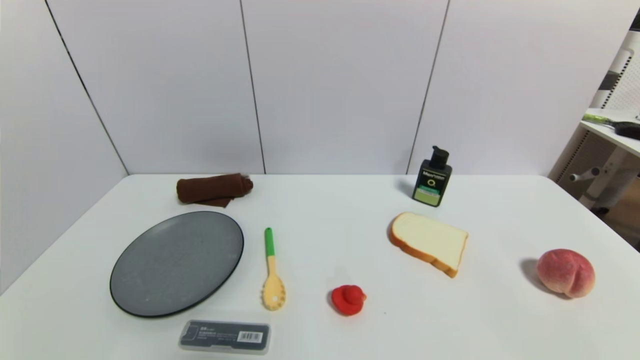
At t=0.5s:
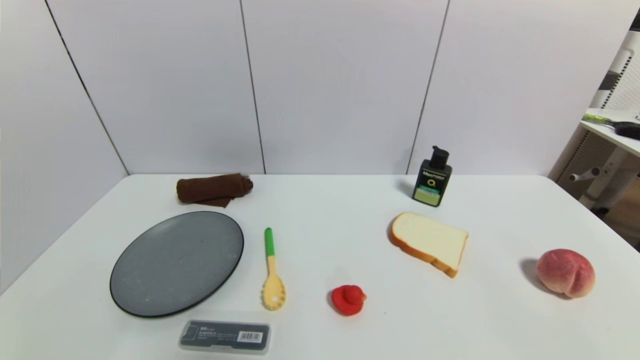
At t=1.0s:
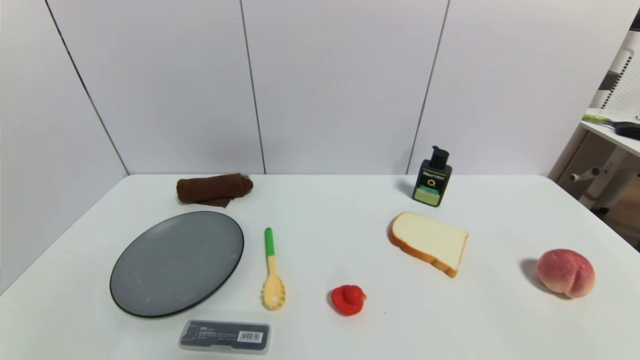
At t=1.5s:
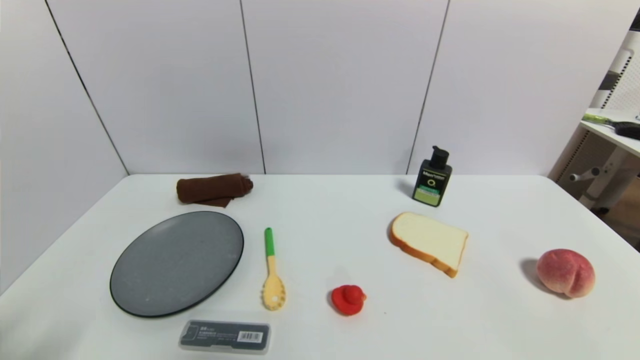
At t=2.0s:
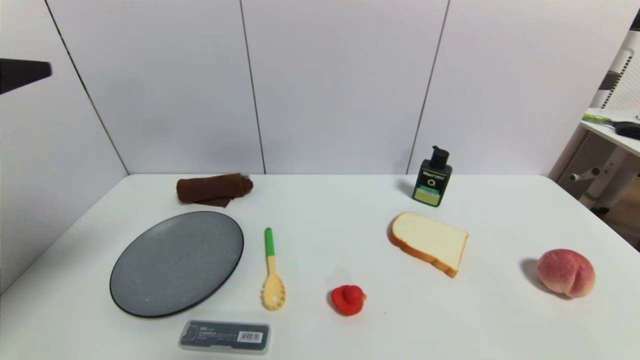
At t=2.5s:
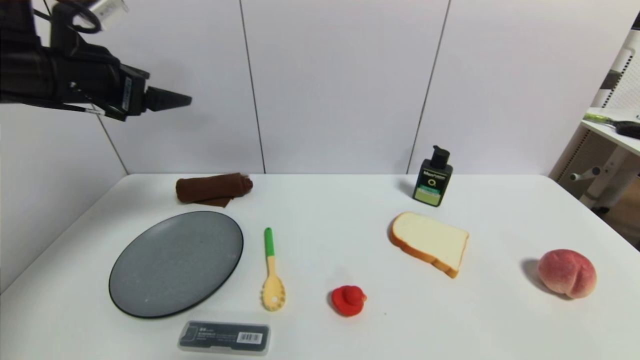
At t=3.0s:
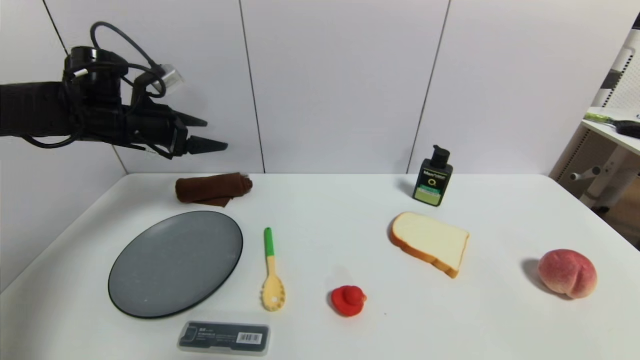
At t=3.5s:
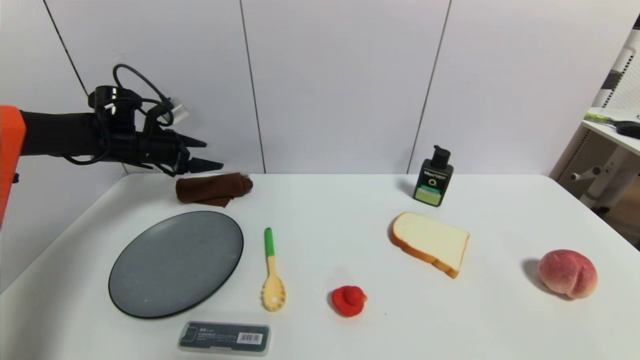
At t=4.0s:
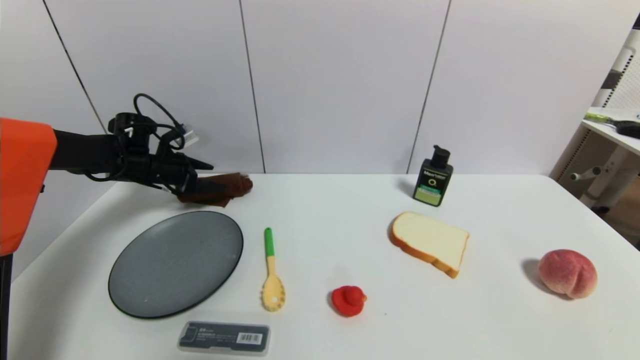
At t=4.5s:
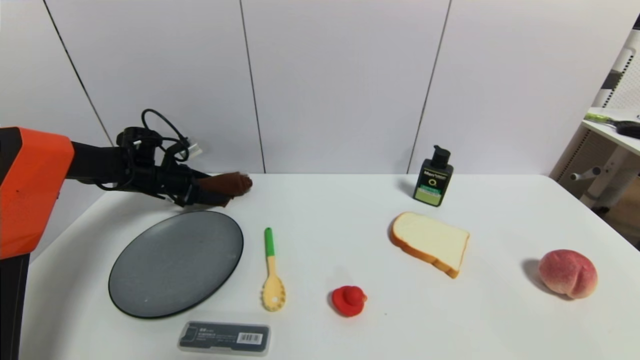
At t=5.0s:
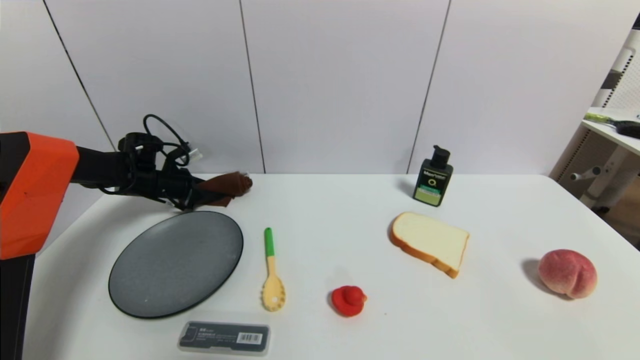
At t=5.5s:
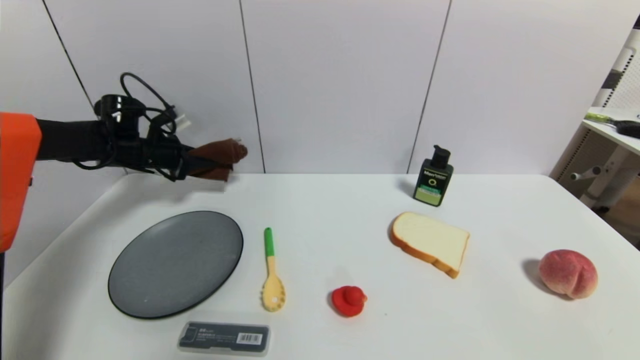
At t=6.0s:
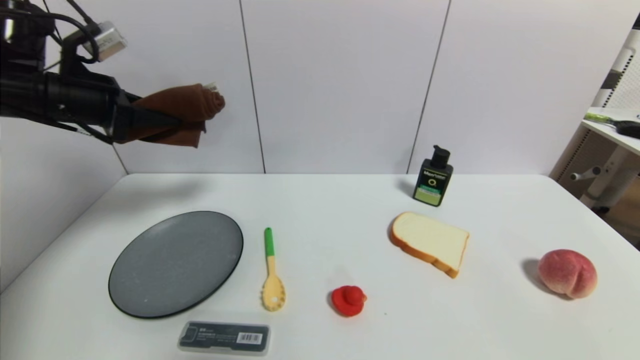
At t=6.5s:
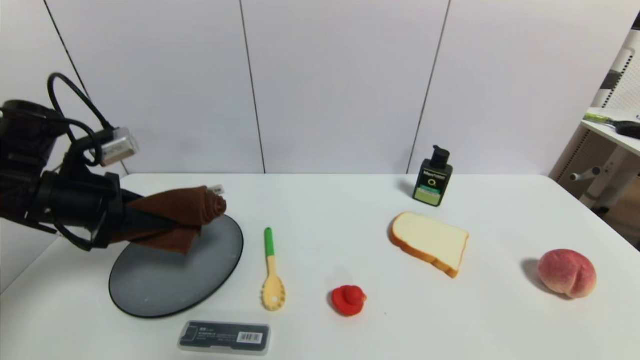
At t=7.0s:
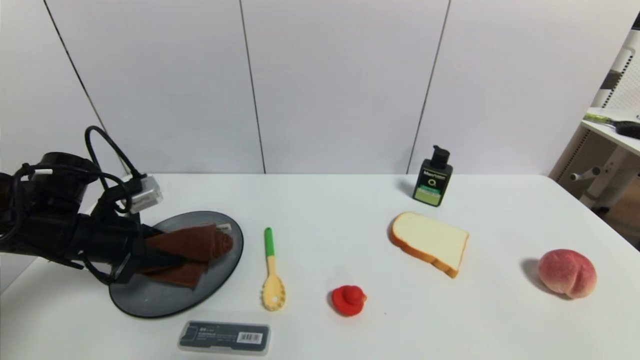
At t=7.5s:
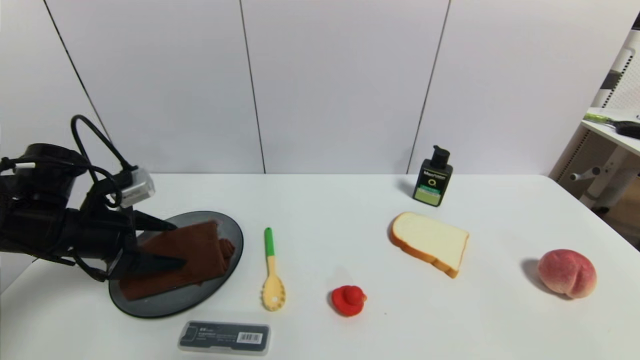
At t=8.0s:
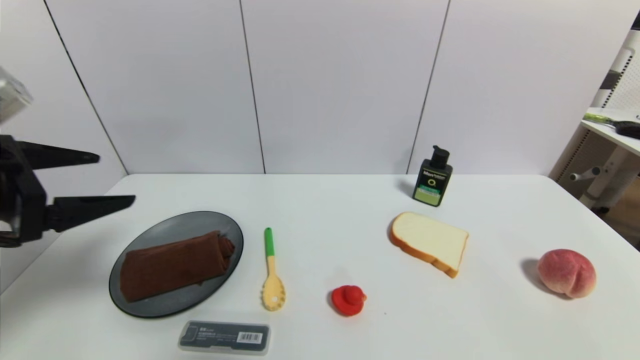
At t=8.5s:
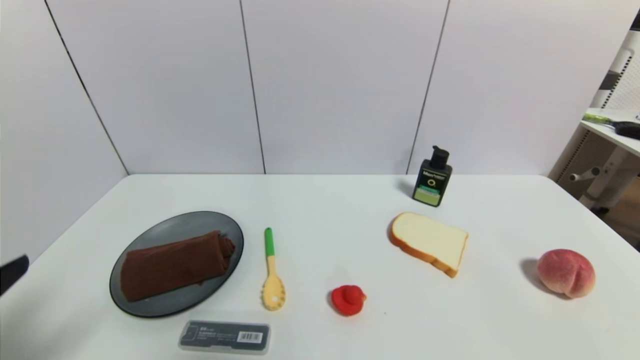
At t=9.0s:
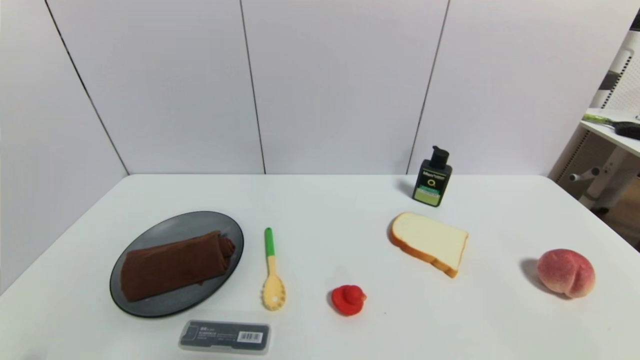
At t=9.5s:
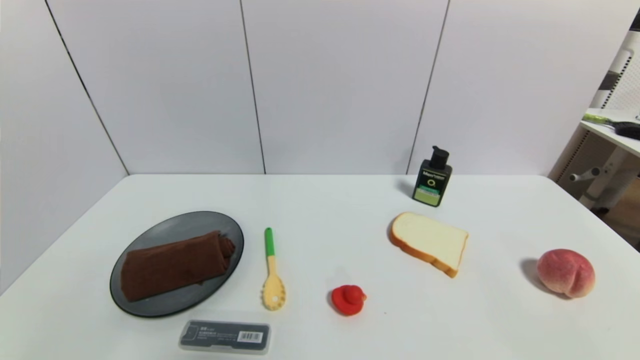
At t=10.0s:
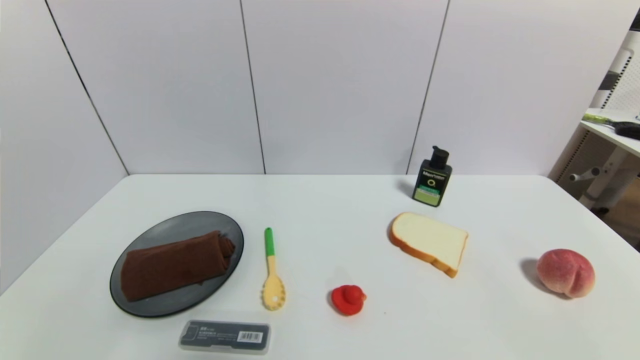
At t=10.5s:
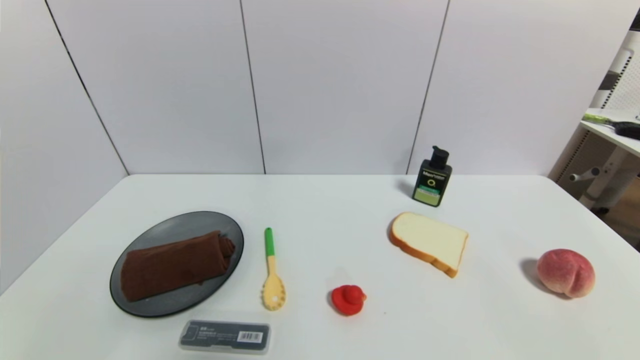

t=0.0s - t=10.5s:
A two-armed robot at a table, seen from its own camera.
Task of the whole recording: use a gripper to pick the target object and place on the gray plate.
Step, t=0.0s - t=5.0s: Grasp the brown towel with the left gripper.
Step, t=5.5s - t=7.5s: Place the brown towel on the gray plate with the left gripper.
t=0.0s - t=2.0s: The left gripper travels upward and forward by about 35 cm.
t=2.0s - t=4.0s: The left gripper is displaced forward and downward by roughly 40 cm.
t=4.0s - t=6.5s: The left gripper moves up and down over some 20 cm, changing direction 2 times, and closes up.
t=6.5s - t=8.5s: The left gripper moves backward, about 25 cm, and opens up.
t=8.5s - t=10.5s: The left gripper goes approximately 20 cm downward.

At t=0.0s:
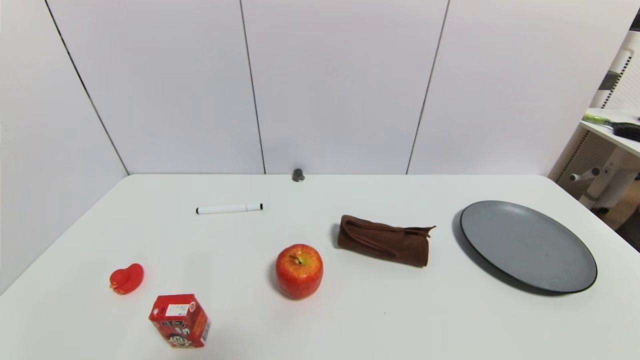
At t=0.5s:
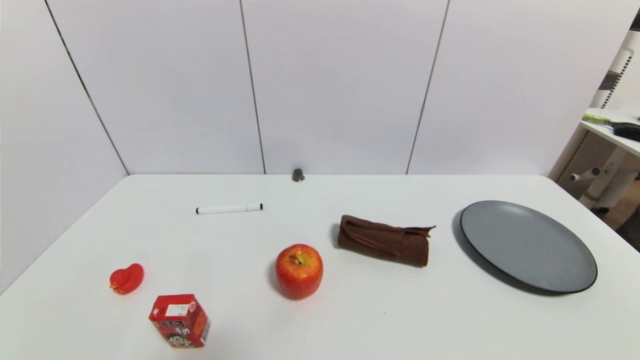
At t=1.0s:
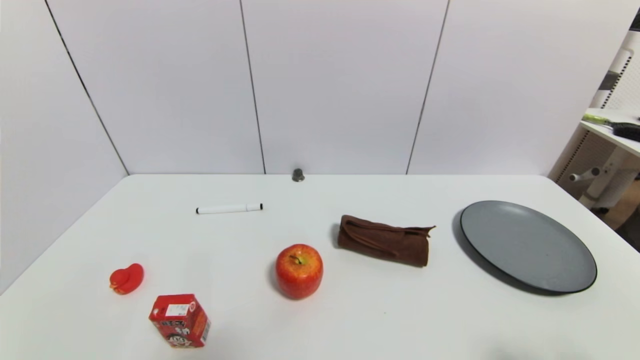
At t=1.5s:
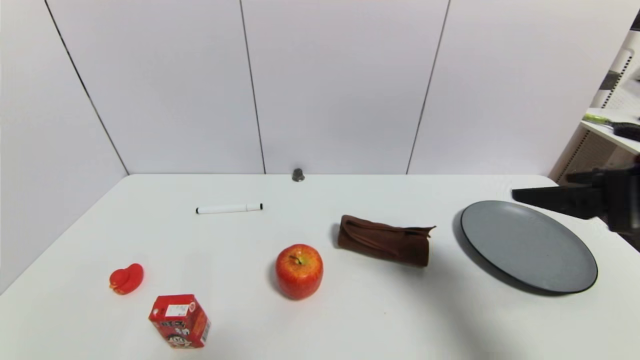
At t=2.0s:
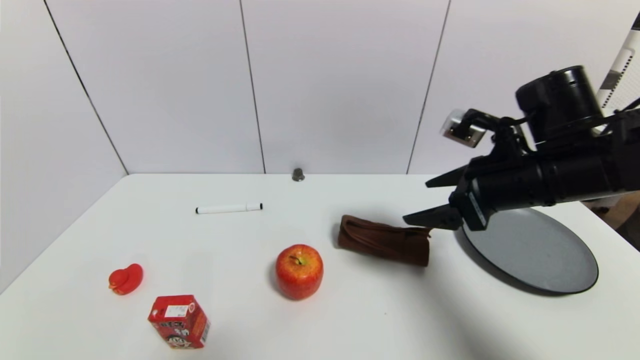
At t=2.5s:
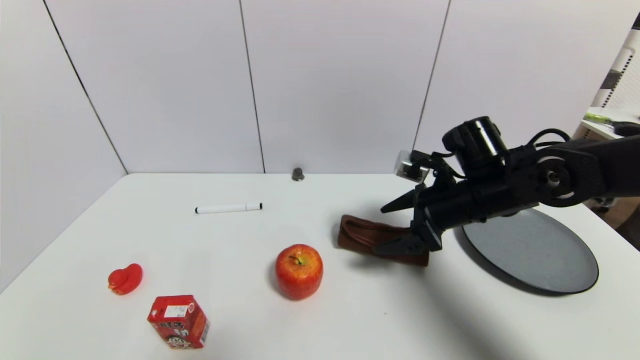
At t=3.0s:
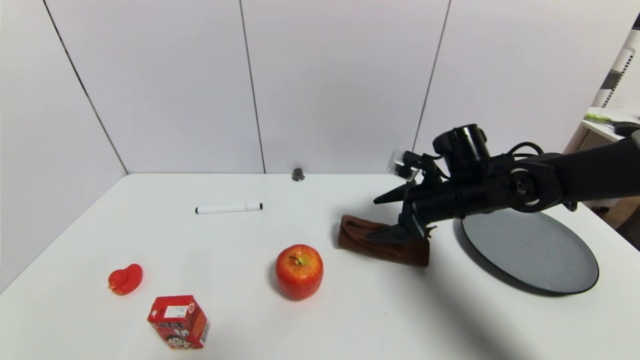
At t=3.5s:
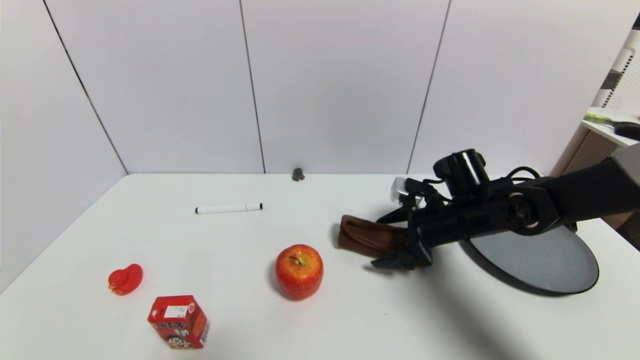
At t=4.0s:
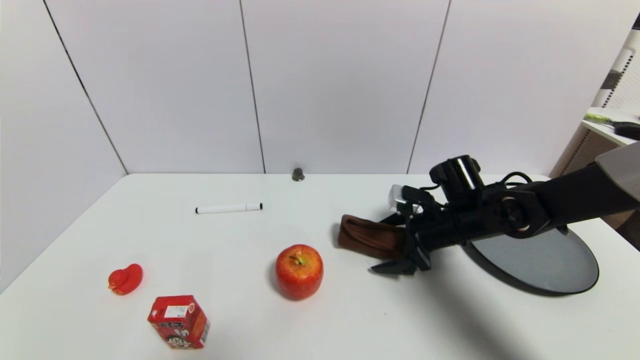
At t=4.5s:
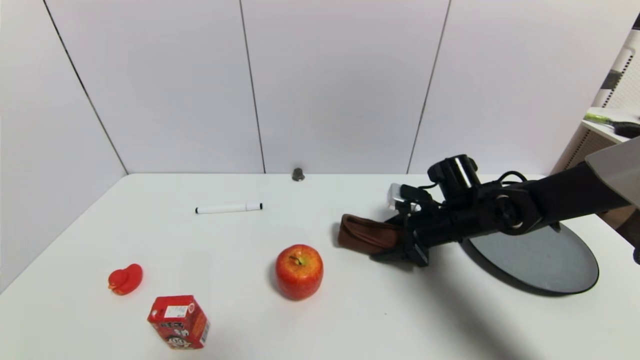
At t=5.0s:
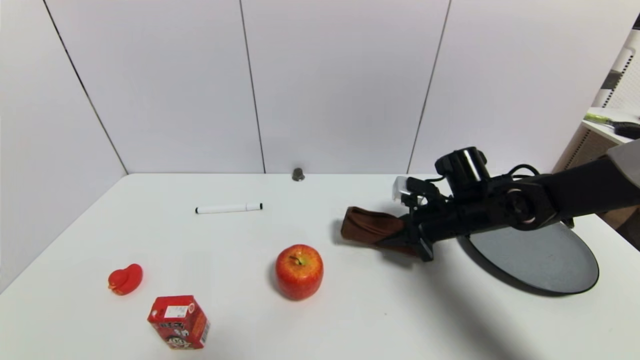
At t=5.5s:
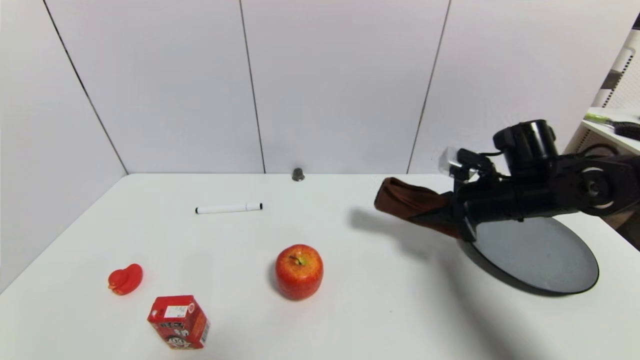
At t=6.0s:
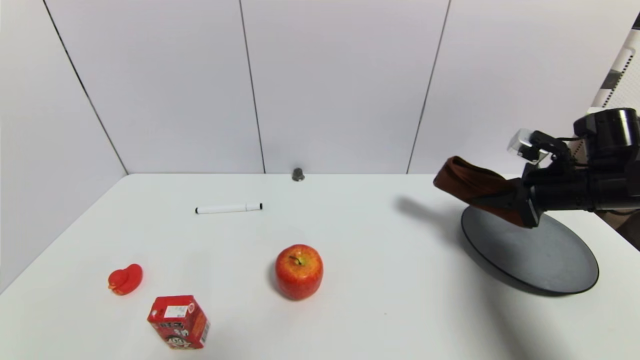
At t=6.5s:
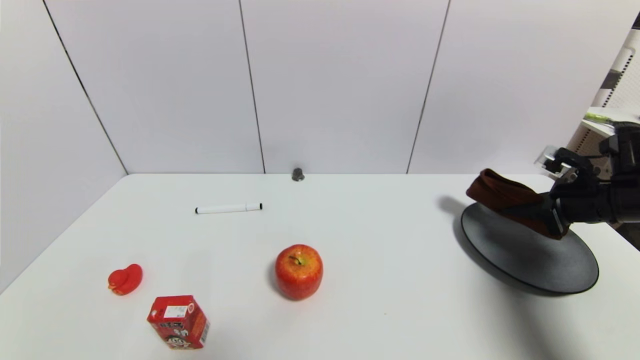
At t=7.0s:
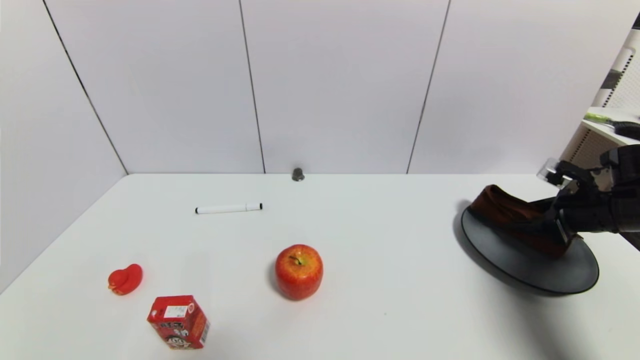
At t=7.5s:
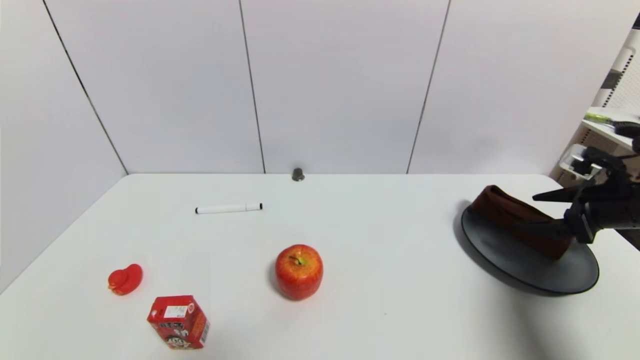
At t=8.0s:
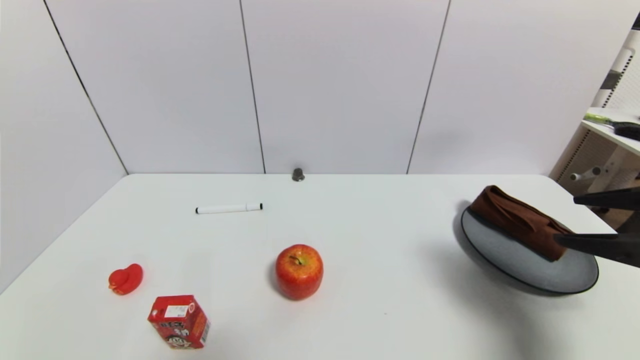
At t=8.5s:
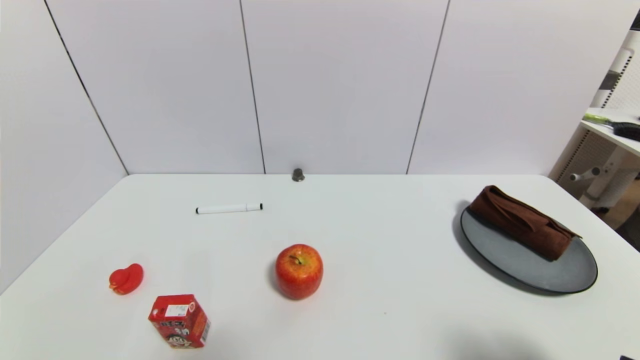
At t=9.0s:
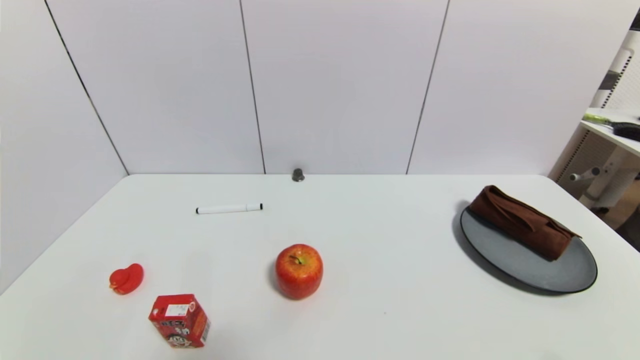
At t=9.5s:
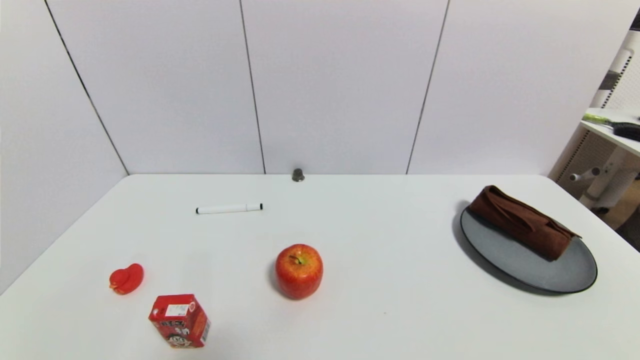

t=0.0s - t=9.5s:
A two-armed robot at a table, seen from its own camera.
Task of the whole recording: use a gripper to pick the target object and place on the gray plate.
Step, t=0.0s - t=4.5s: Grasp the brown towel with the right gripper.
Step, t=5.0s - t=7.5s: Place the brown towel on the gray plate with the right gripper.
t=0.0s - t=2.0s: The right gripper heads forward and upward, covering some 35 cm.
t=2.0s - t=4.0s: The right gripper is displaced downward and forward by about 15 cm.
t=4.0s - t=5.5s: The right gripper heads to the right and upward, covering about 10 cm, and closes its fingers.
t=5.5s - t=7.5s: The right gripper travels to the right by approximately 15 cm, and opens.
t=7.5s - t=9.5s: The right gripper travels backward by roughly 30 cm.
